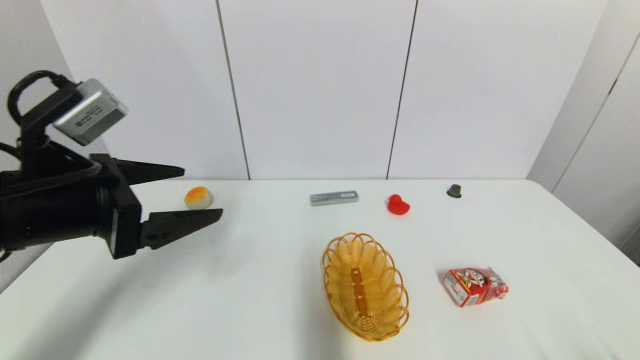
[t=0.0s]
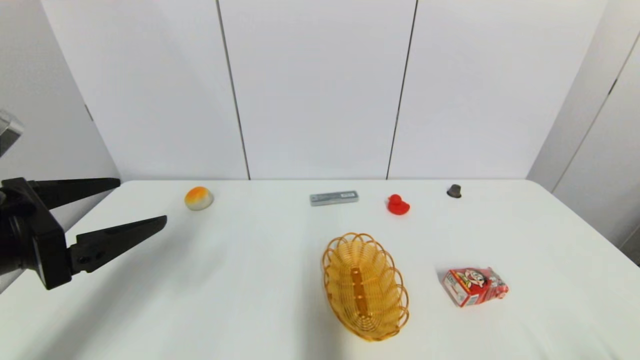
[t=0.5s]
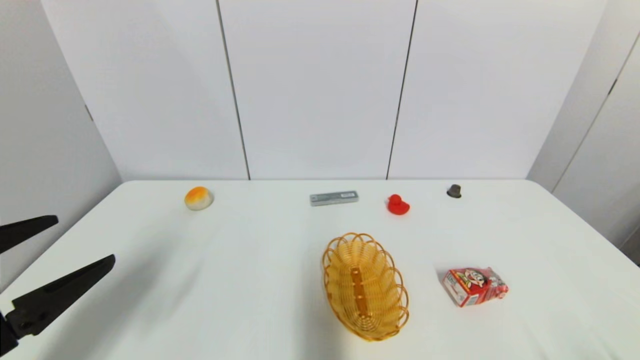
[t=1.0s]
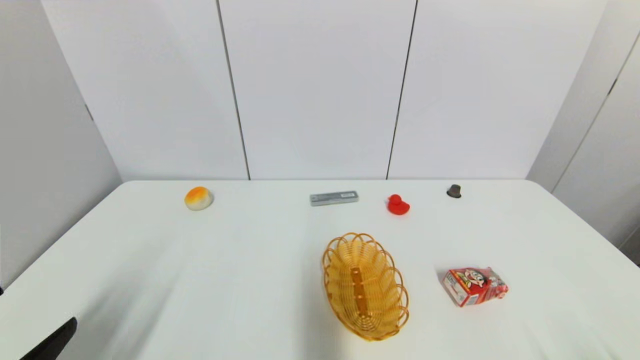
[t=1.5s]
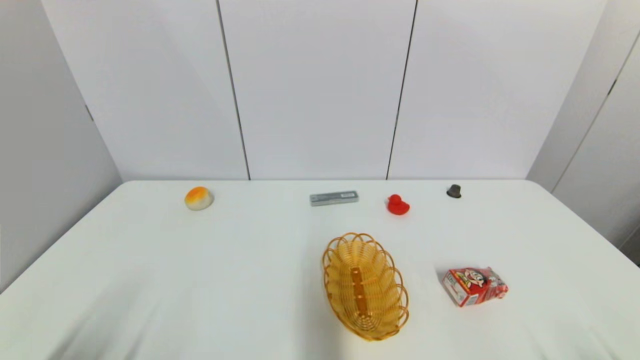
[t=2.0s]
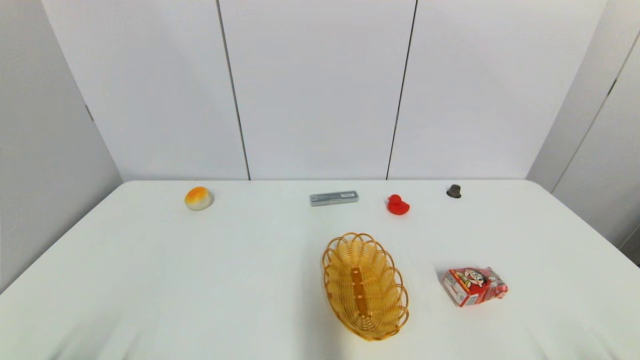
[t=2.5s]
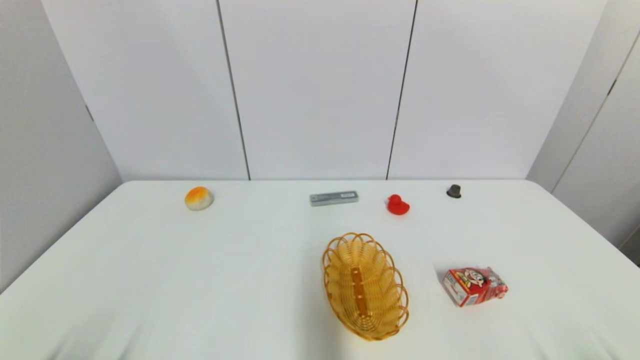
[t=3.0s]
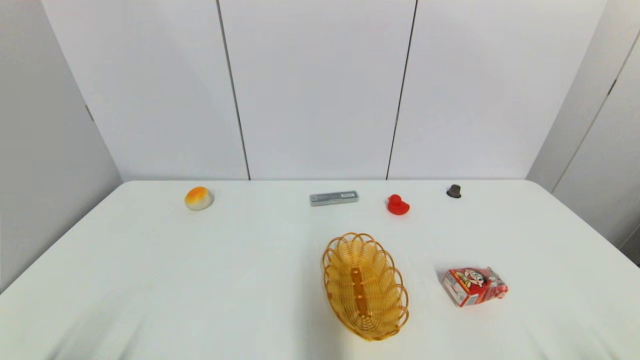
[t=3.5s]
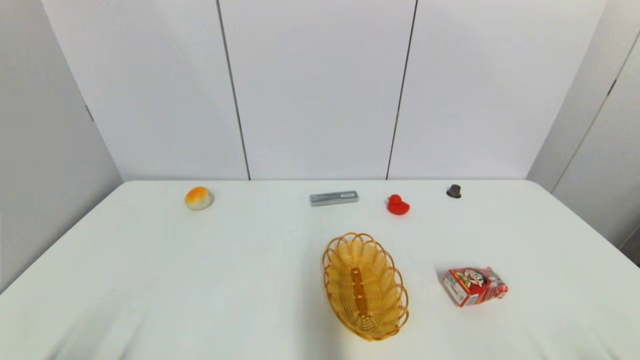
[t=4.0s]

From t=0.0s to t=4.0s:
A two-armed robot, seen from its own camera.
From t=0.0s to t=2.0s: The left gripper shifts roughly 25 cm backward and downward.
